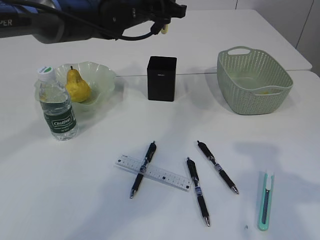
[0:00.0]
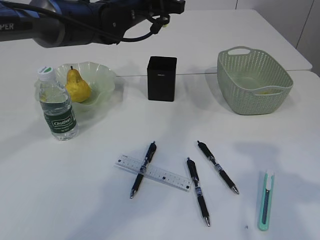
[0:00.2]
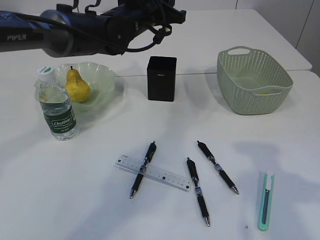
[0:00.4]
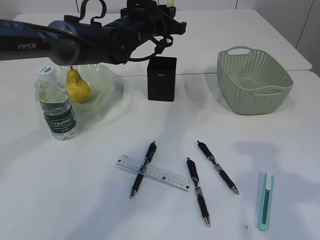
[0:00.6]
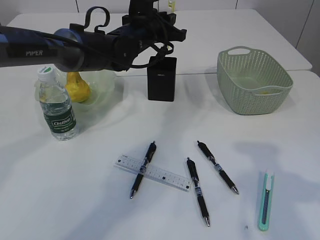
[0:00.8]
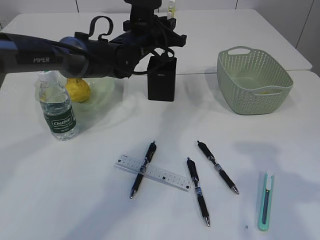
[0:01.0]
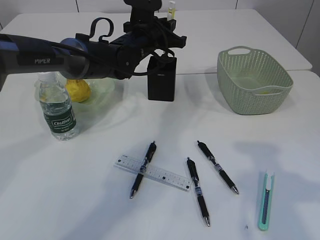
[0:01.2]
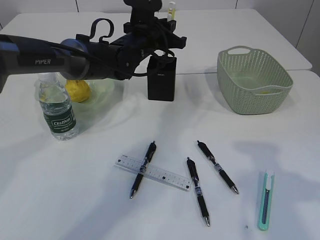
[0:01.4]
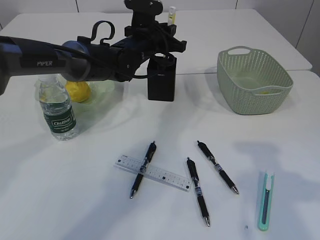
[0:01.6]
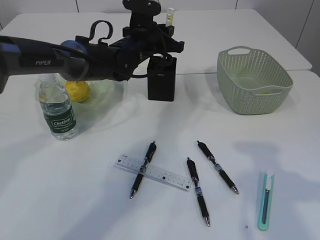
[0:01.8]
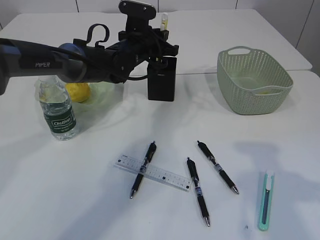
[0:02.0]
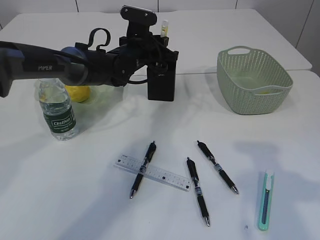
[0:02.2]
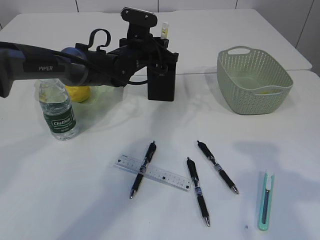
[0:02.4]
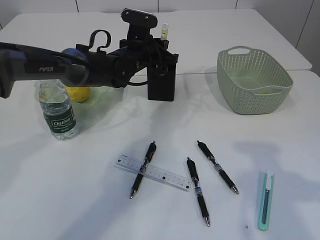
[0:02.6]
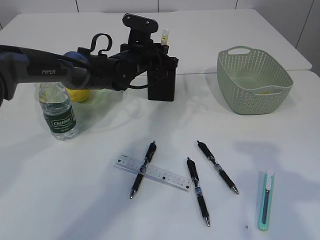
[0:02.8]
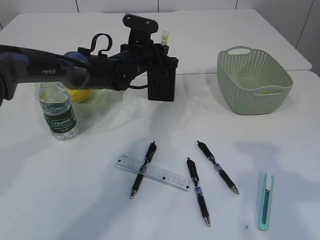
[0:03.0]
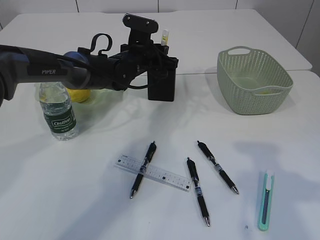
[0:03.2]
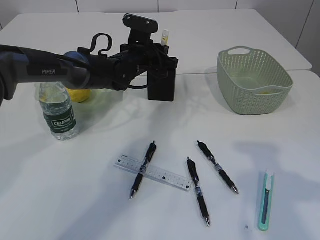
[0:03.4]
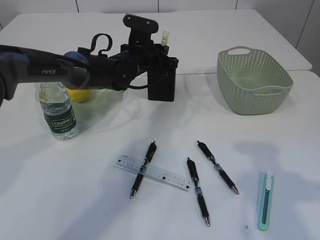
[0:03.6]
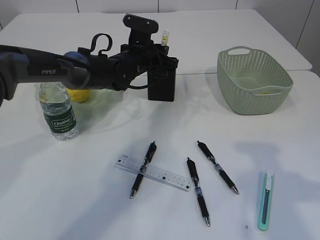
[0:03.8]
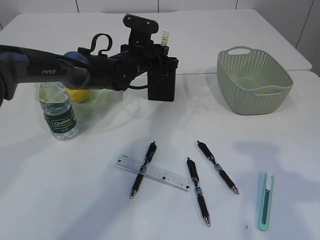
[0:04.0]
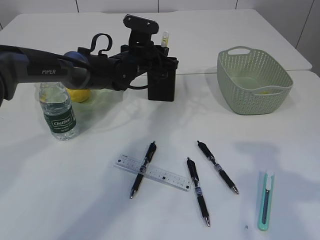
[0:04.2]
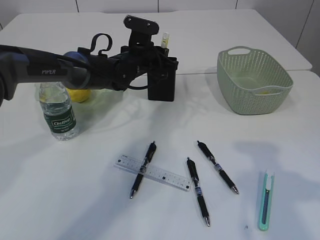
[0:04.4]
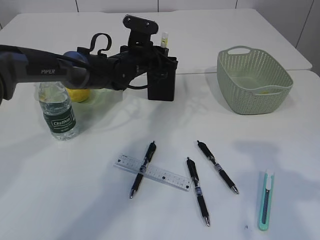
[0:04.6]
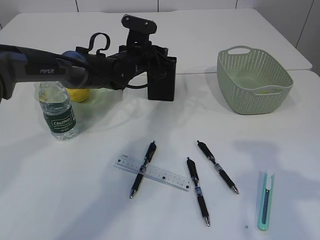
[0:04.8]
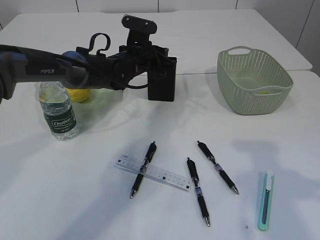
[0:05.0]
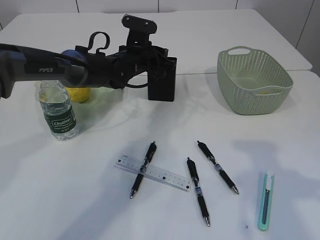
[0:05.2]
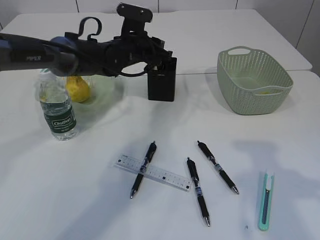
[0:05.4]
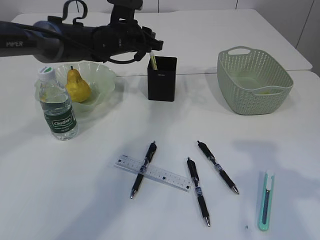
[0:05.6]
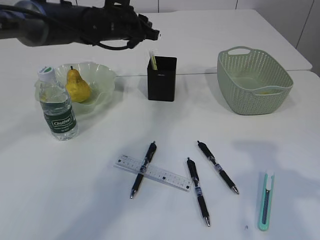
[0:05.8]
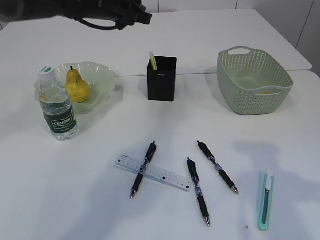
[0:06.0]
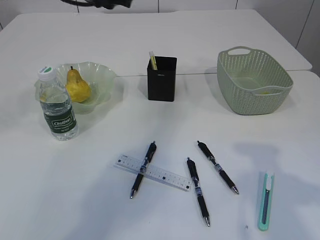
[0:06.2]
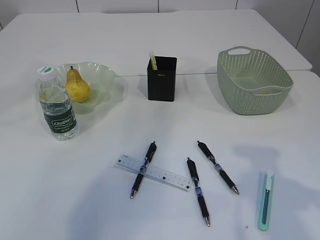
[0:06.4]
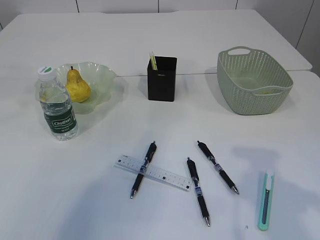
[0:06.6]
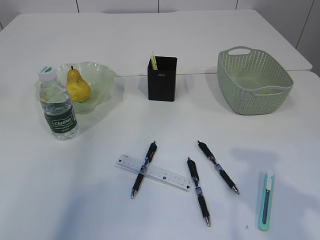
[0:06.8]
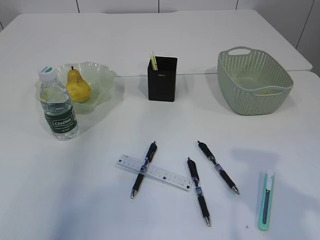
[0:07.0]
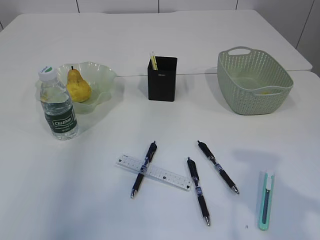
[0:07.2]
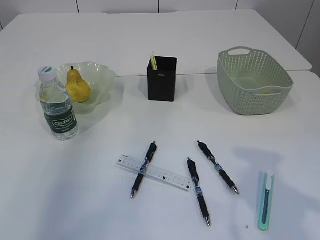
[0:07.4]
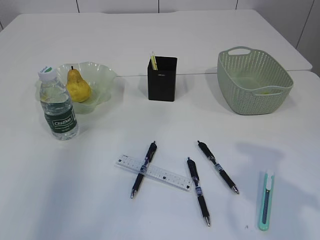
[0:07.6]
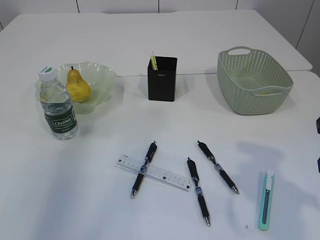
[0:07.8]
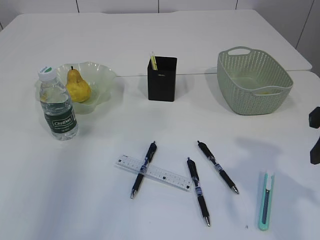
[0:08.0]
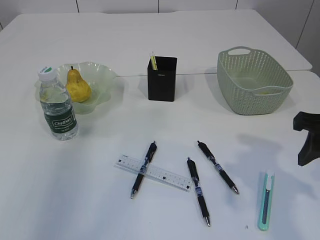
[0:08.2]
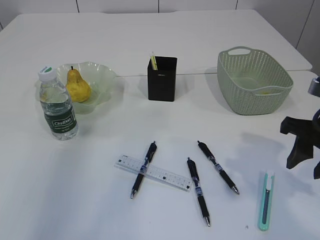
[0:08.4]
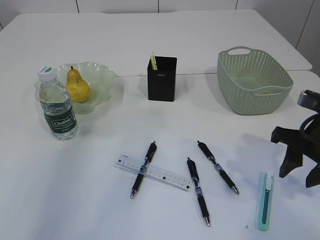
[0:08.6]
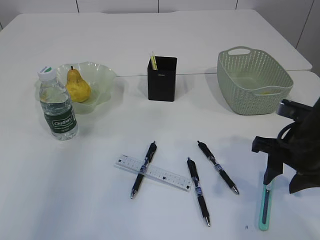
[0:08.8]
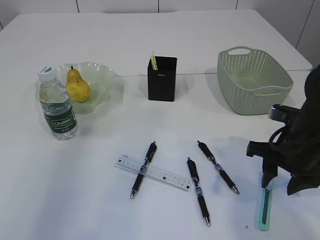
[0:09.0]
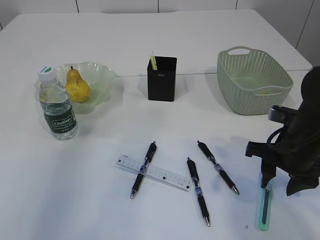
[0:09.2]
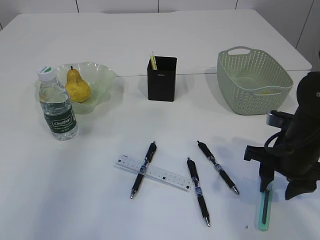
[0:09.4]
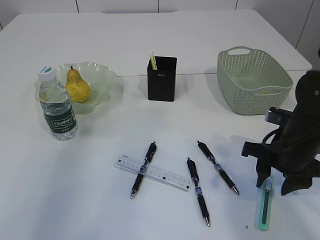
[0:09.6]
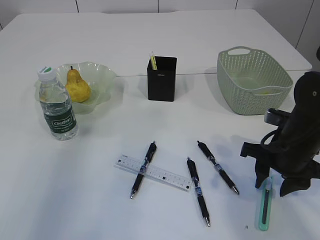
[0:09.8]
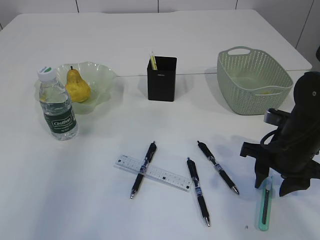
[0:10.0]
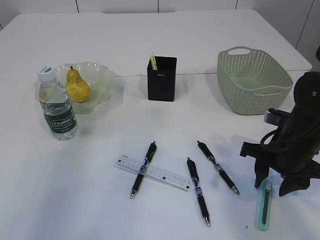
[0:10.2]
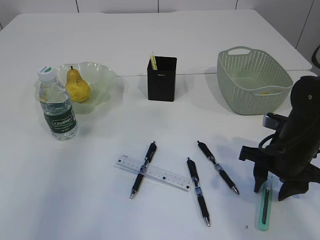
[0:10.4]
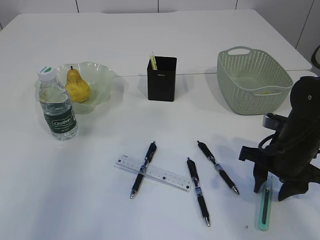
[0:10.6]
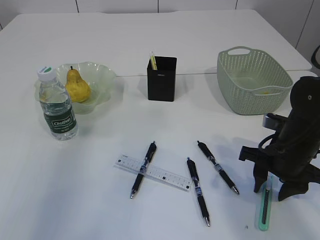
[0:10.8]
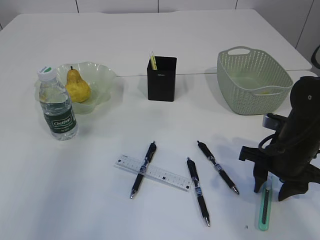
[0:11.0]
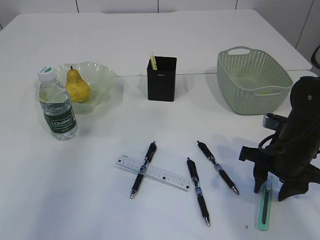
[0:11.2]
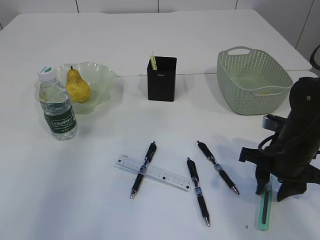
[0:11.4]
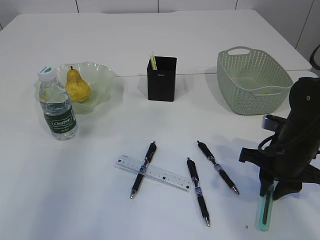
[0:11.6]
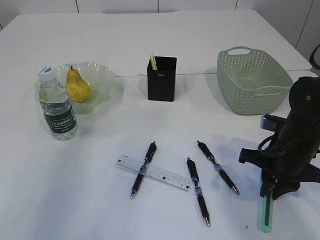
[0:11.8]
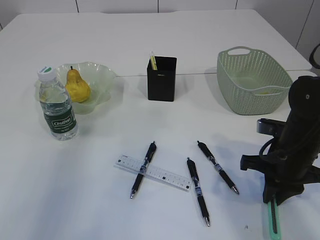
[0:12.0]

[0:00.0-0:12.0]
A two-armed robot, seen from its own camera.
Step, 0:00.0 to 0:06.0: place the yellow knife into the pen holder.
0:00.0 to 0:01.6: The left gripper moves downward, about 10 cm.
0:01.6 to 0:03.0: The grippers make only small movements.
0:03.0 to 0:04.4: Both grippers stay put.
0:04.4 to 0:06.0: The left gripper goes some 10 cm upward.
0:06.0 to 0:07.6: The left gripper is displaced to the left, backward and upward by approximately 30 cm.
0:07.6 to 0:09.0: The right gripper shifts roughly 15 cm downward and forward.
0:09.0 to 0:10.4: There are only small adjustments of the grippers.
0:10.4 to 0:12.0: The right gripper closes its fingers.

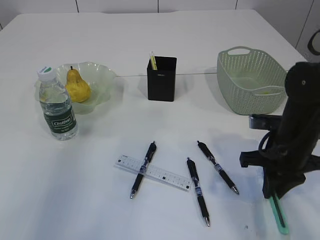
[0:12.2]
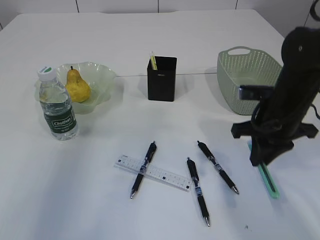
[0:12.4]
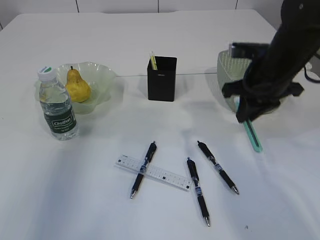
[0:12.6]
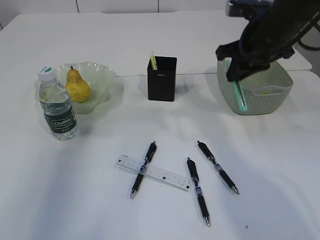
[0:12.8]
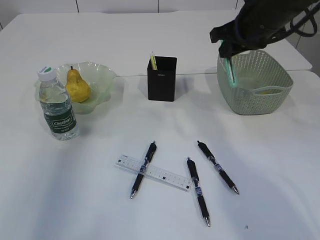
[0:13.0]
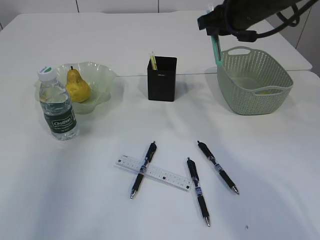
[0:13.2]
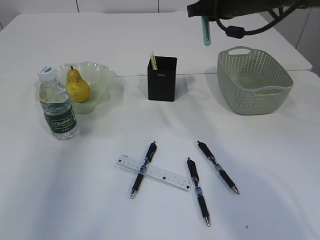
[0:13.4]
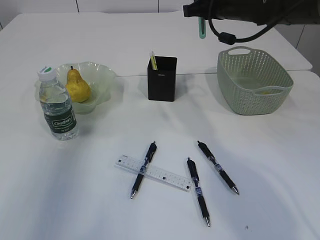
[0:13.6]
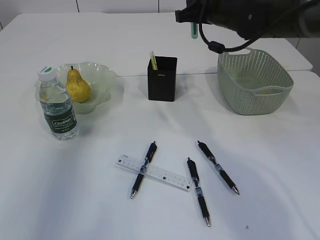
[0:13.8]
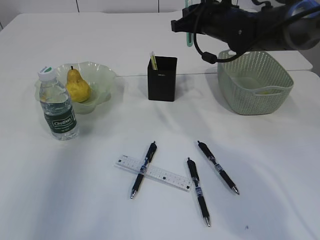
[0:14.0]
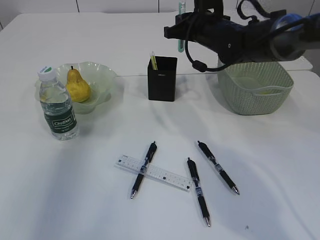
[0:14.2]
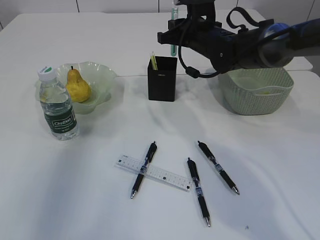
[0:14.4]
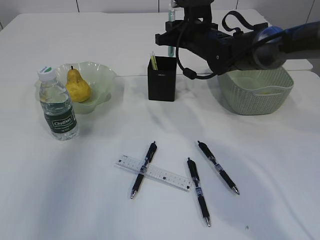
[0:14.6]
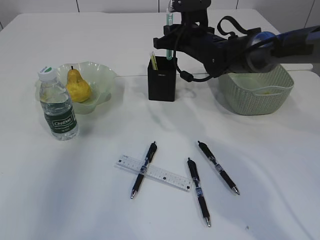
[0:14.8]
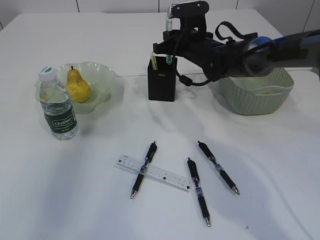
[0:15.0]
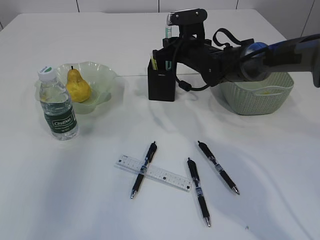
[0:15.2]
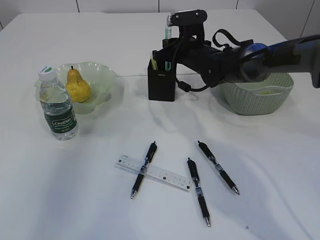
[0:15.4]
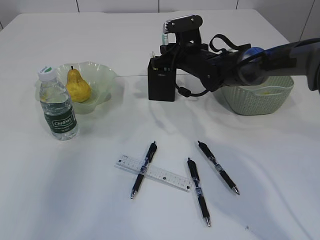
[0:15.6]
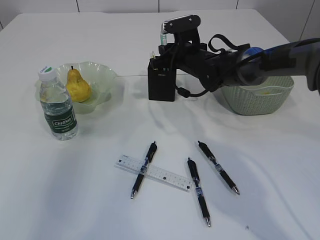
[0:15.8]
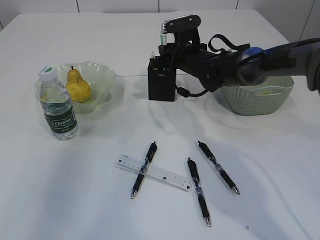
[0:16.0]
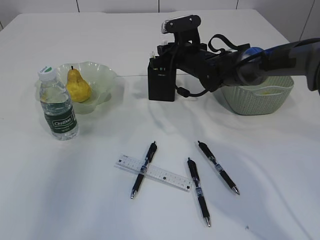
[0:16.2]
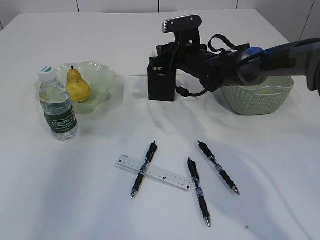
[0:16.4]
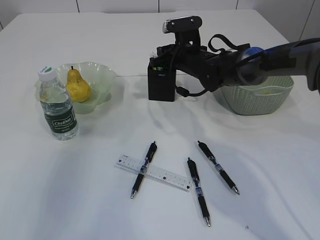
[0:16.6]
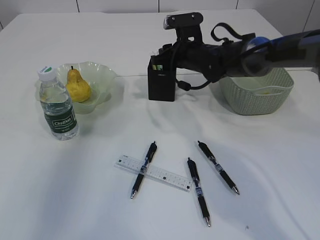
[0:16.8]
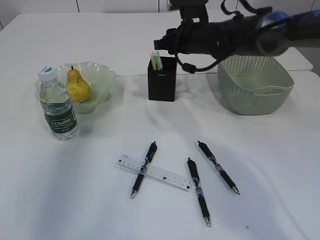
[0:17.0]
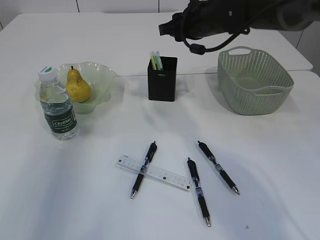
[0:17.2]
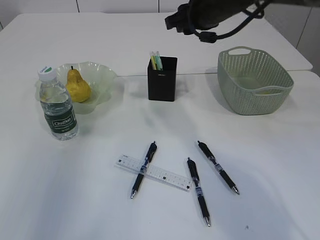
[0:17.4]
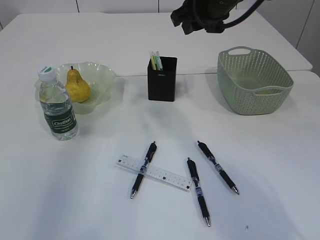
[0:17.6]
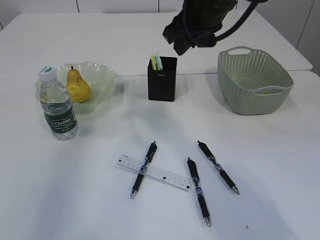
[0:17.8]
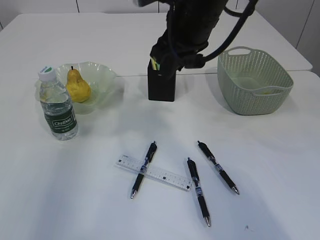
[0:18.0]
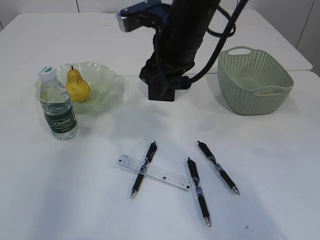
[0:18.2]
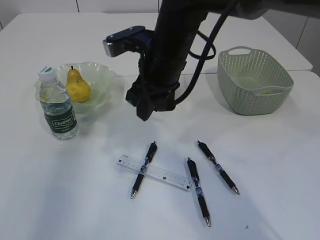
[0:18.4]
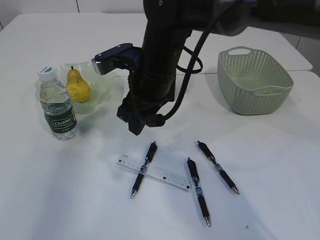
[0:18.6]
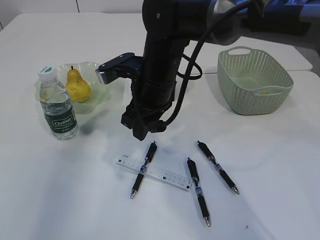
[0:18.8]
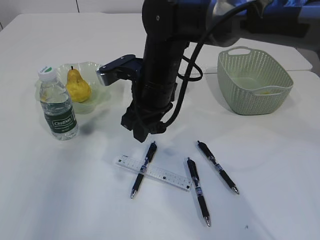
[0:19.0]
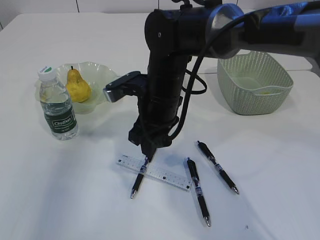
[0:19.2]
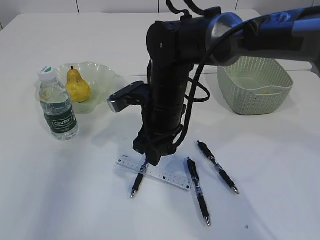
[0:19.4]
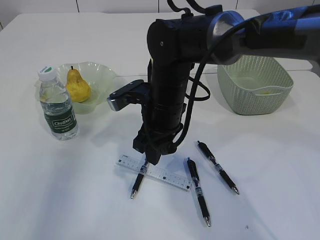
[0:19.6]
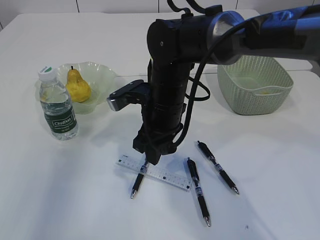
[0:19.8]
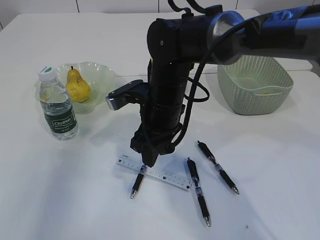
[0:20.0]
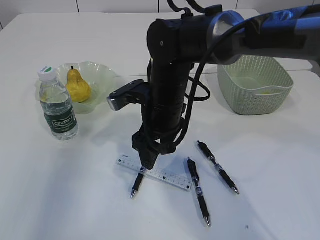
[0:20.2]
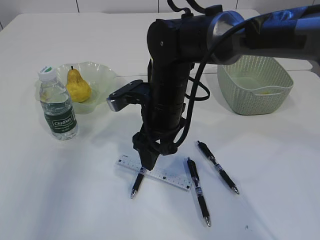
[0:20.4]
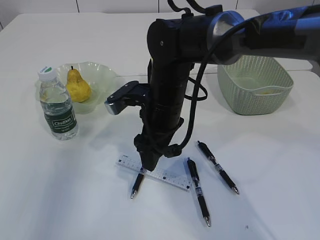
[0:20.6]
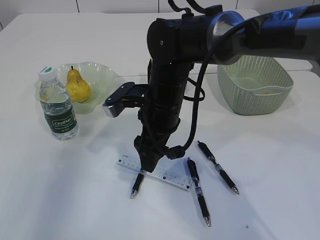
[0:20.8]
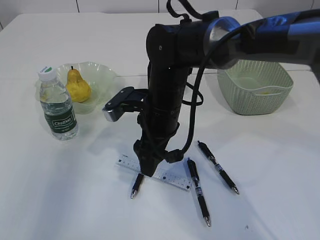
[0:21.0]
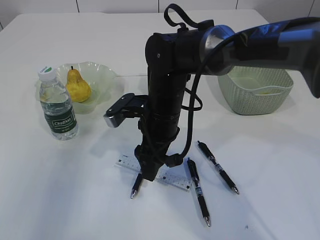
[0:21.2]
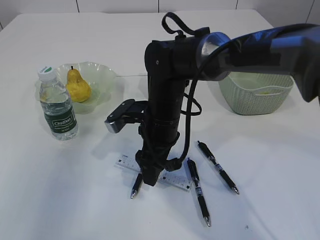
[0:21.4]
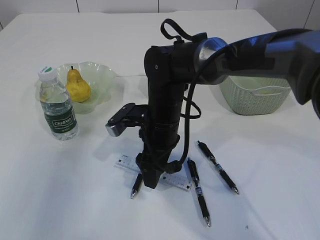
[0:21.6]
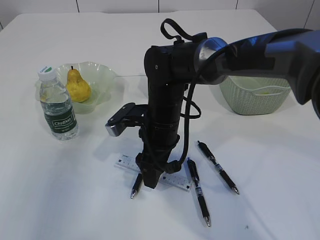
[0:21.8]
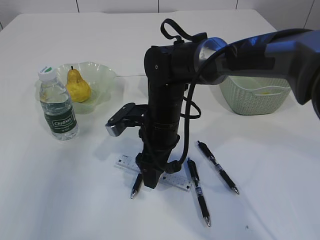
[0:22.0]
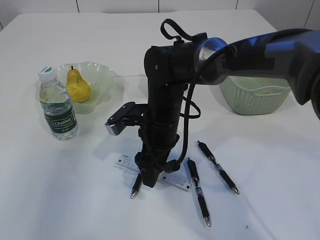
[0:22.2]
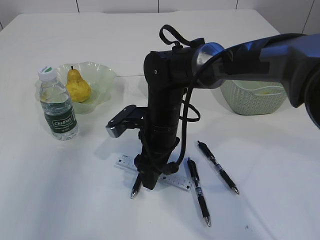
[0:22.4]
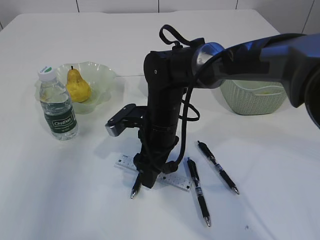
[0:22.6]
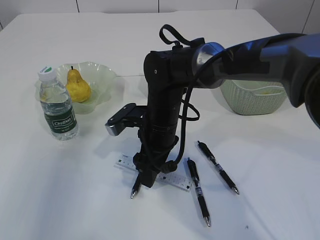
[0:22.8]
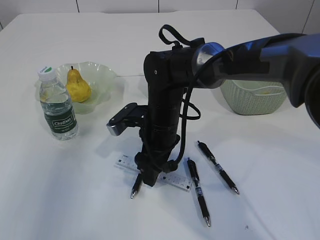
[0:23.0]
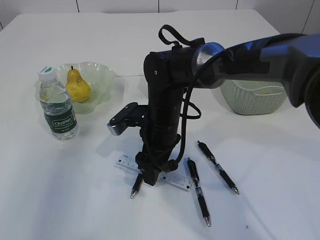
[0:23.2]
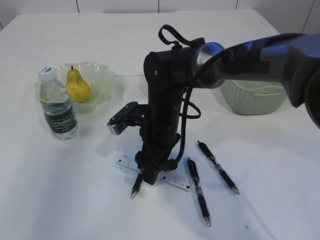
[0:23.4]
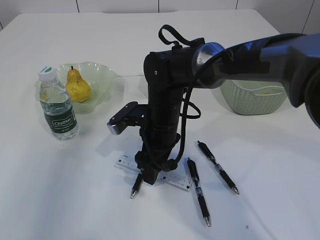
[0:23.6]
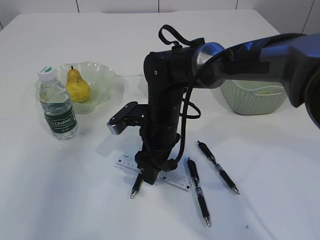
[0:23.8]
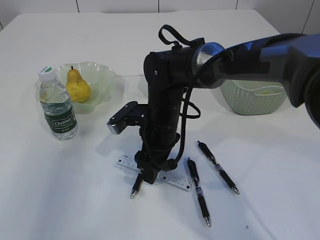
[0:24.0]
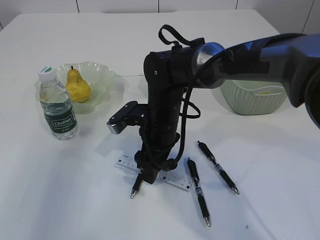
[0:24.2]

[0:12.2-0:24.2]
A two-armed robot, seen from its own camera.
Step, 0:12.4 to 0:17.0: Place the blue knife into the pen holder.
0:12.2 to 0:13.8: The right gripper moves forward, upward and to the left, approximately 25 cm.
0:13.8 to 0:15.2: The right gripper heads downward, covering approximately 10 cm.
0:15.2 to 0:16.6: The right gripper opens its fingers.
0:16.6 to 0:18.2: The right gripper shifts roughly 20 cm backward and upward.
0:18.2 to 0:19.8: The right gripper moves downward, about 10 cm.
0:19.8 to 0:21.2: The right gripper opens up.
0:21.2 to 0:22.6: The grippers make only small movements.
0:22.6 to 0:24.2: Both grippers stay put.
